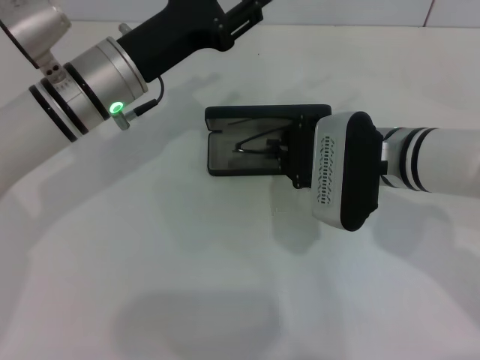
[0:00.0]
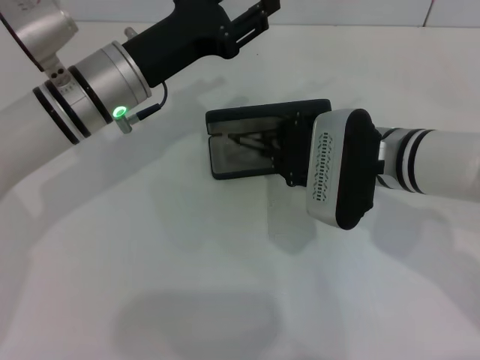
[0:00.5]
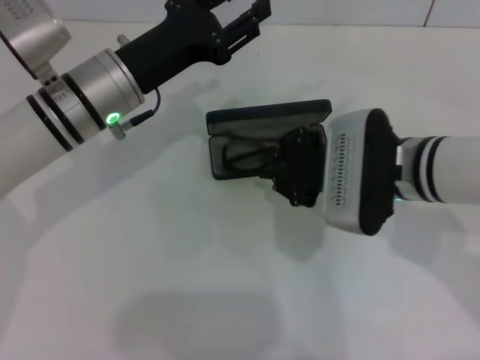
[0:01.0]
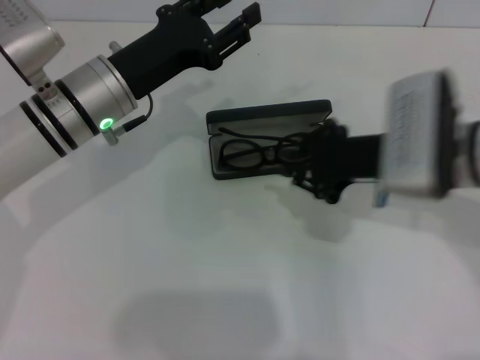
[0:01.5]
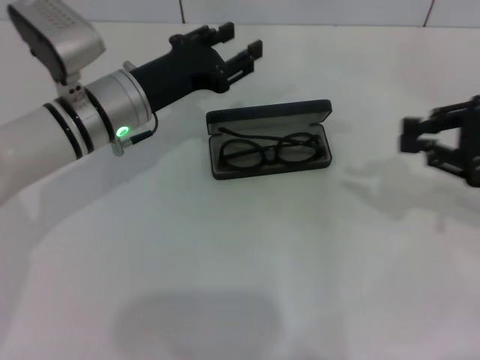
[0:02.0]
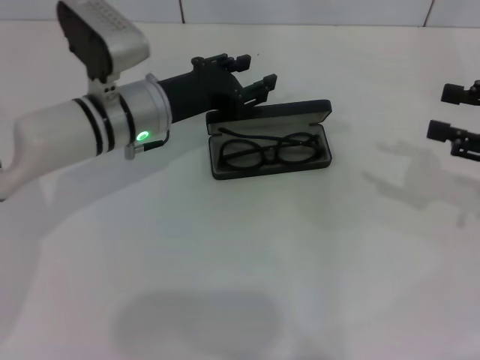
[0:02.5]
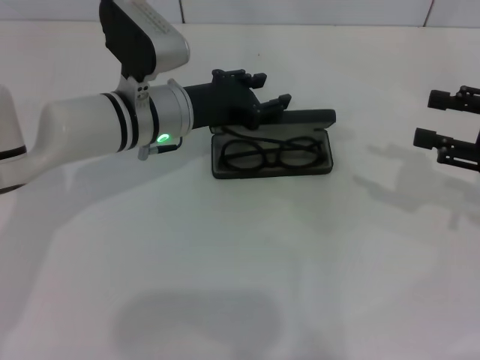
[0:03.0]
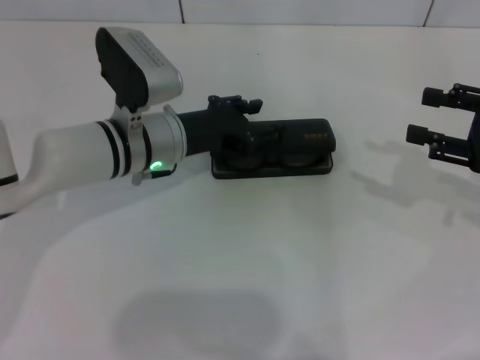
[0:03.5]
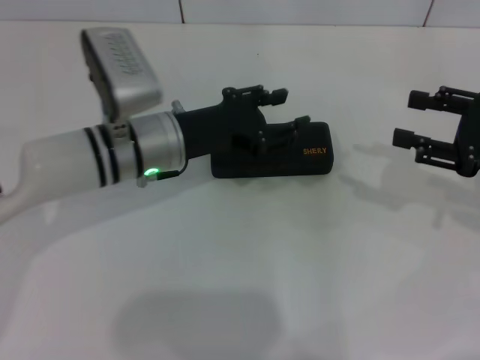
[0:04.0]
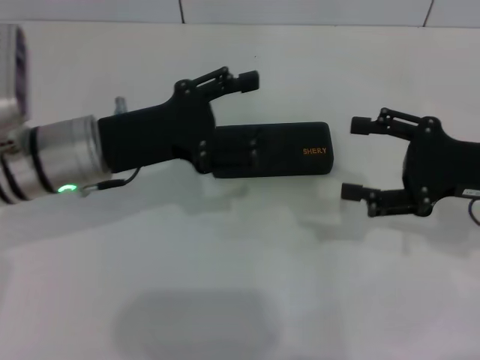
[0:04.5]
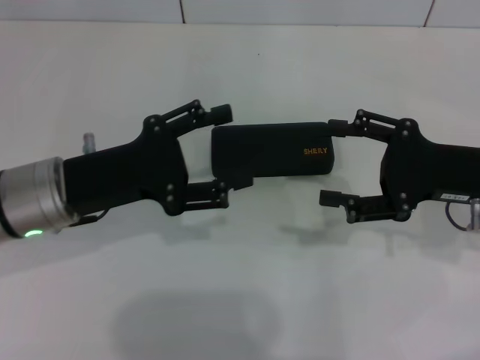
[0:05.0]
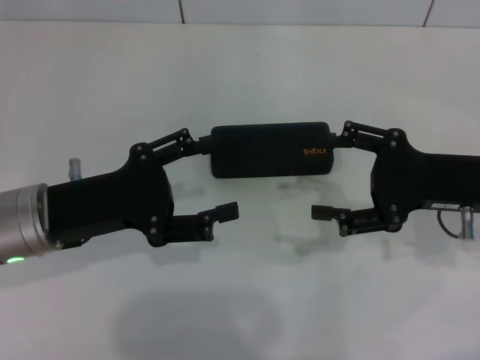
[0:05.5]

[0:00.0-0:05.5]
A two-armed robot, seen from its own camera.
Step, 0:01.5 to 0:03.5: Close the glasses case with your left hand.
0:00.0 to 0:02.0: The right gripper shifts roughly 20 cm to the right.
0:02.0 to 0:03.5: The right gripper opens its fingers.
0:03.5 to 0:05.5: The left gripper heads backward and to the left, covering some 15 cm, and opens. The right gripper travels to the left by roughly 10 cm.
